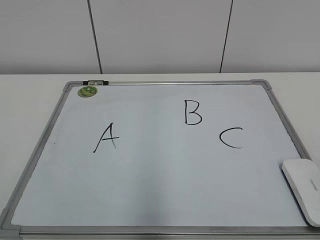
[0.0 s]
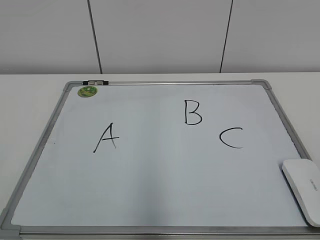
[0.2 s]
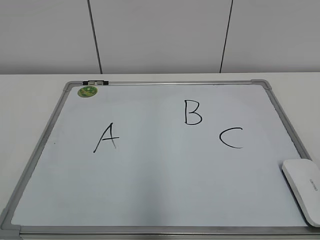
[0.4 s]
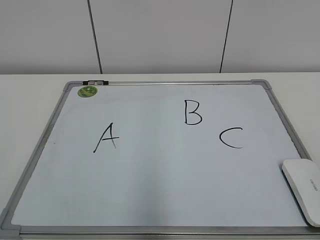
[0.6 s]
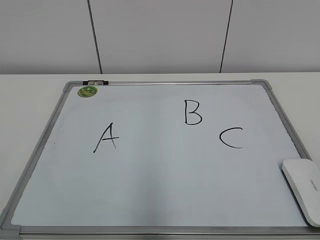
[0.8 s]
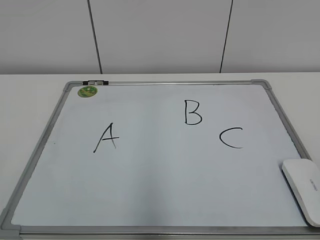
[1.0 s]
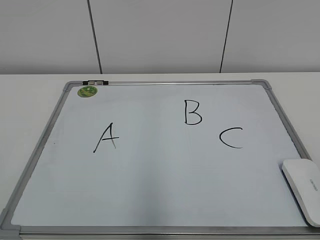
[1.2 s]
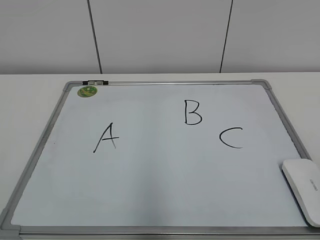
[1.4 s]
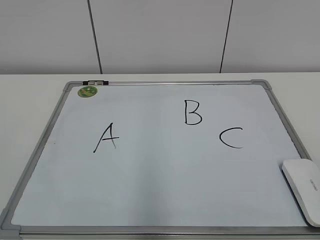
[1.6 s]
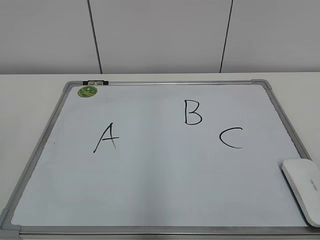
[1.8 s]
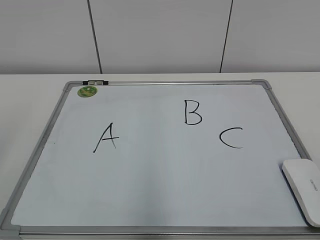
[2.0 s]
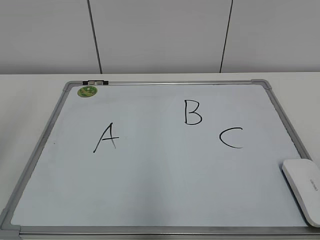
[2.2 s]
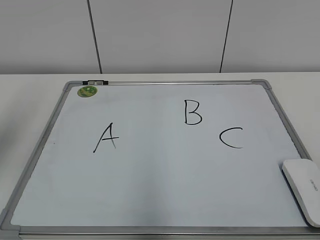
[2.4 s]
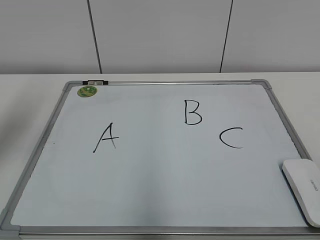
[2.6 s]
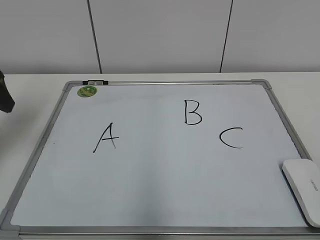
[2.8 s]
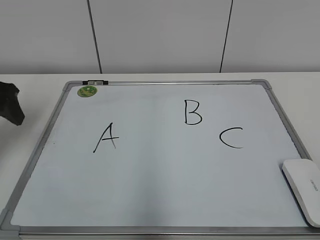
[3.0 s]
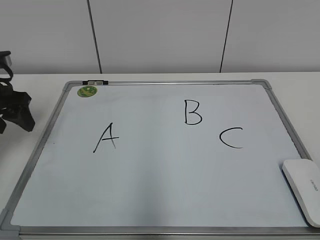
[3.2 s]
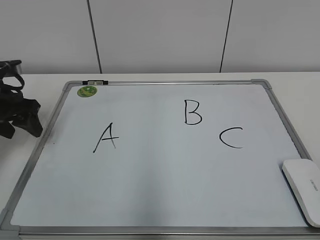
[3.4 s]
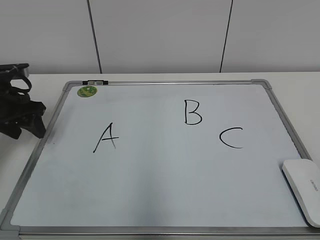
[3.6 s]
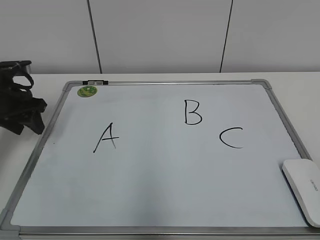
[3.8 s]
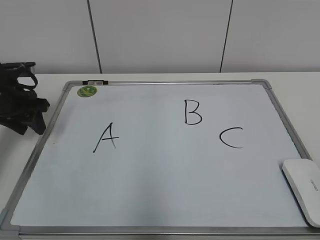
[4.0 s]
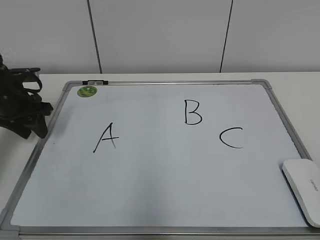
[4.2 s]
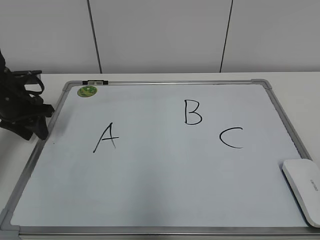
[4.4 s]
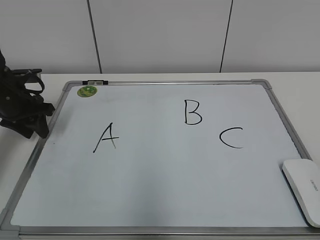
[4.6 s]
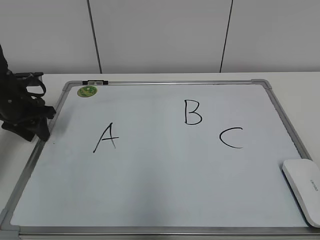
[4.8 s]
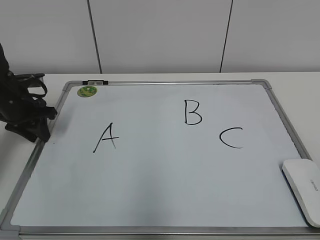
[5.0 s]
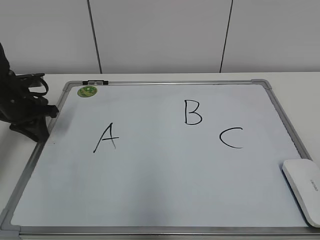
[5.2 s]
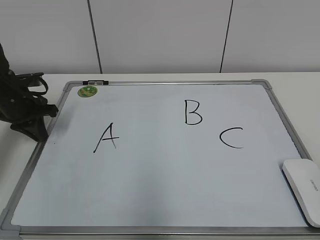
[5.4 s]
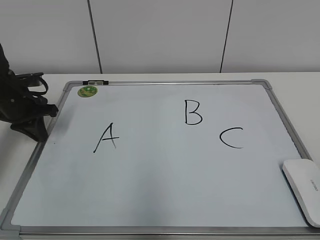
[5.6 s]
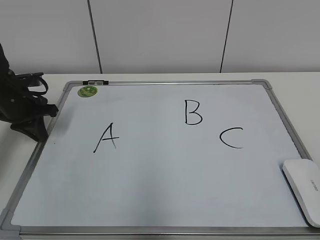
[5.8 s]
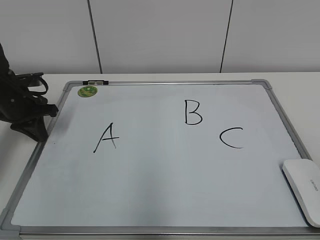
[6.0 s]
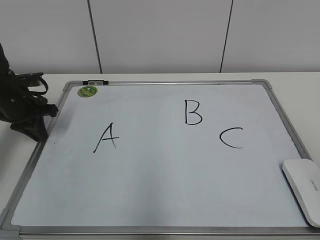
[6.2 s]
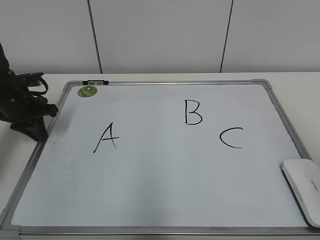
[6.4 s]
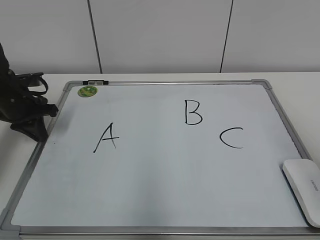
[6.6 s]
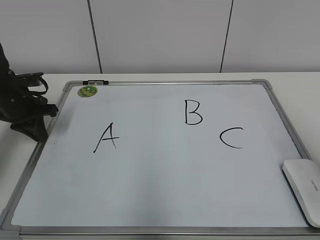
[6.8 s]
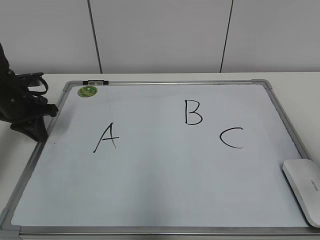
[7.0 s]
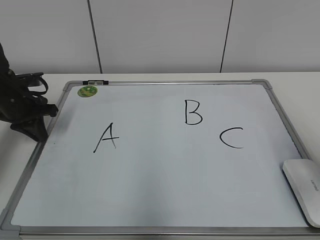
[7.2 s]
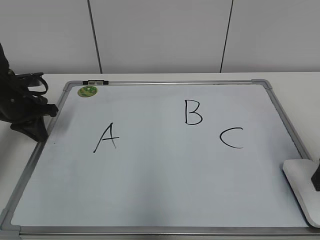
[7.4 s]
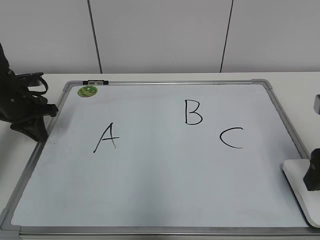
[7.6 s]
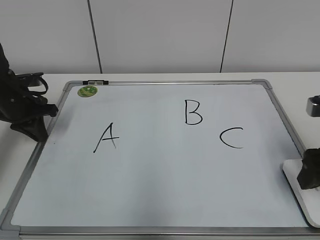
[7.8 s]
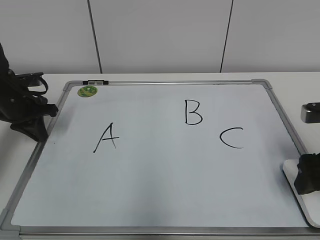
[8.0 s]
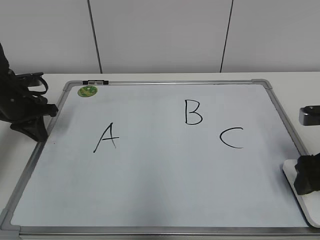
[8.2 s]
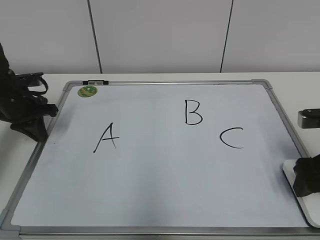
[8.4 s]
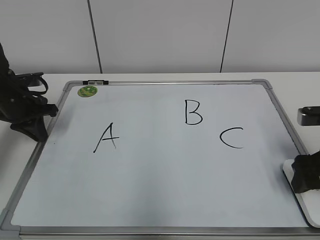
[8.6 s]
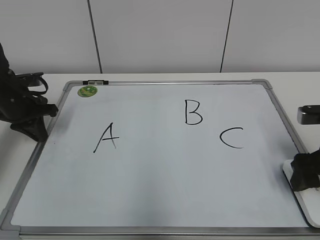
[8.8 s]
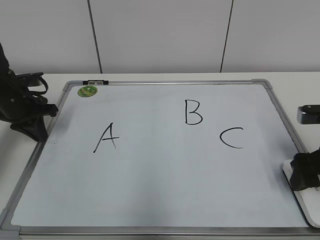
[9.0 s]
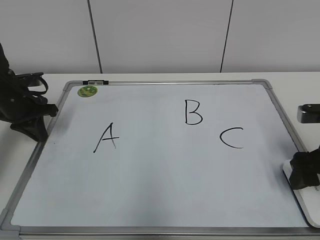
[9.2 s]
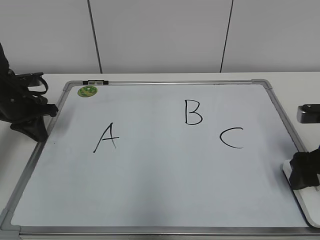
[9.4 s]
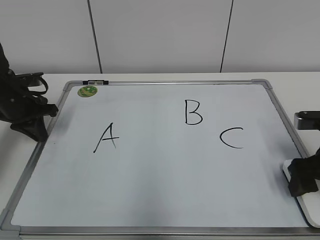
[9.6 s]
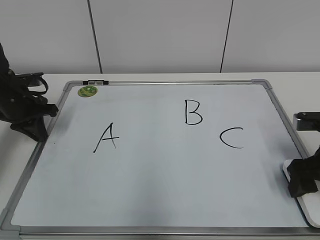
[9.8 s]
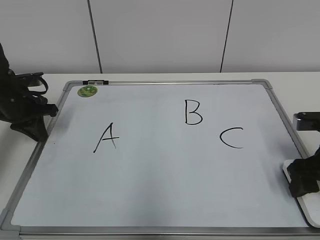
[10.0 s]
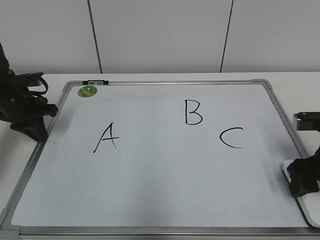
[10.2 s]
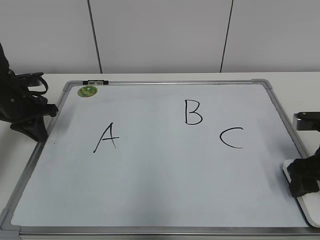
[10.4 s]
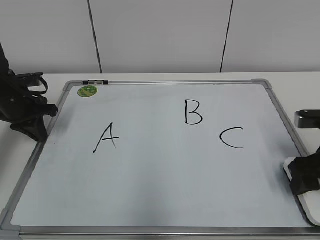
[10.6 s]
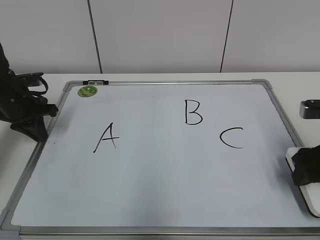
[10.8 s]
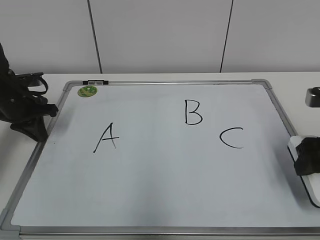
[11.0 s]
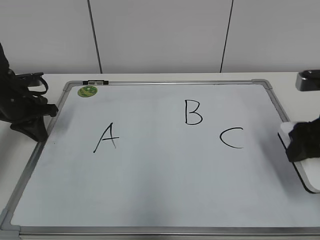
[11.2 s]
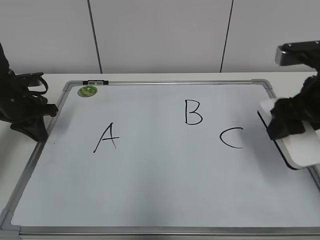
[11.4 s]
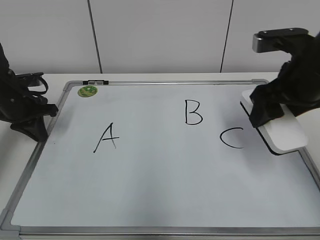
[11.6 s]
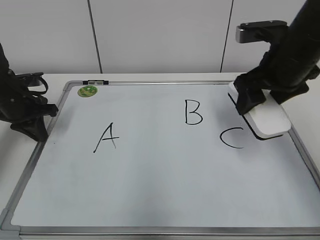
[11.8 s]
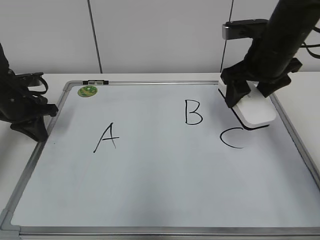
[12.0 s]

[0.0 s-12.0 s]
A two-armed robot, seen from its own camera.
Task of the whole recording: pick up the eraser on the blackboard and erase the letter "B".
Step, 0.0 to 5.2 s: Fixed the drawing board with the left gripper.
Step, 5.4 to 10.6 s: pick up the blackboard eraser with the right gripper.
1.6 to 3.0 s: The left gripper travels forward by some 35 cm.
3.0 to 4.4 s: The left gripper goes roughly 10 cm downward and forward, and closes.
4.4 to 6.0 s: The left gripper closes.
6.0 to 7.6 s: The right gripper is displaced forward by about 20 cm, and opens up.
7.6 to 9.0 s: The right gripper travels downward by roughly 5 cm.
9.0 to 10.4 s: The right gripper closes its fingers.
10.4 to 12.0 s: The right gripper heads forward, upward and to the left, covering roughly 20 cm.

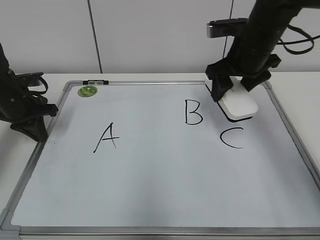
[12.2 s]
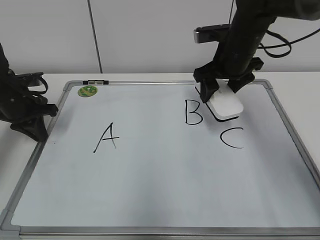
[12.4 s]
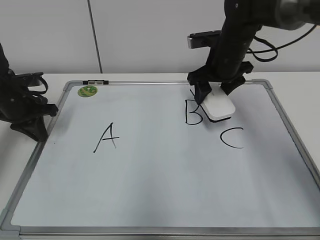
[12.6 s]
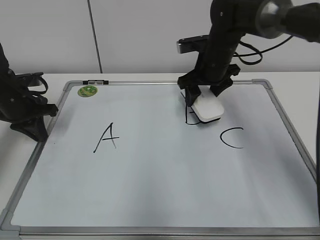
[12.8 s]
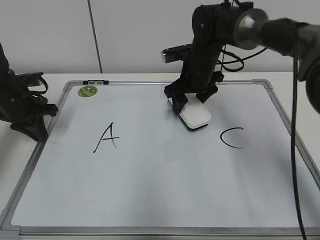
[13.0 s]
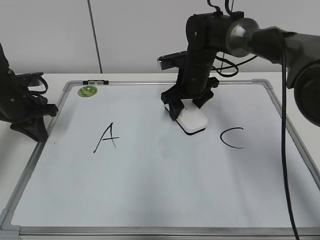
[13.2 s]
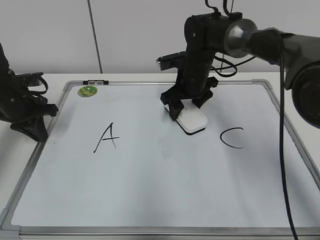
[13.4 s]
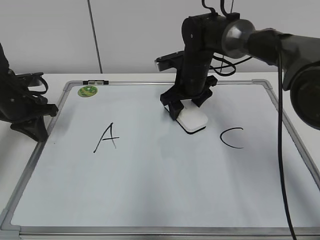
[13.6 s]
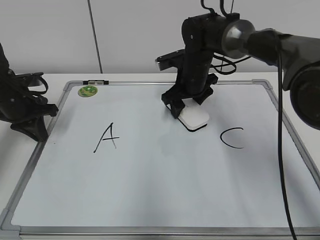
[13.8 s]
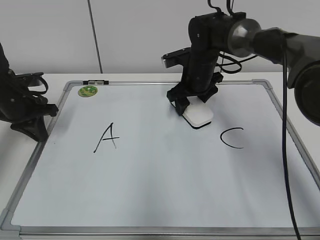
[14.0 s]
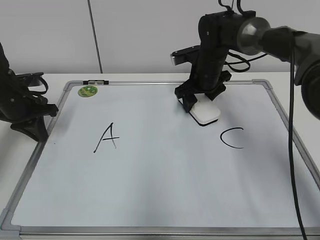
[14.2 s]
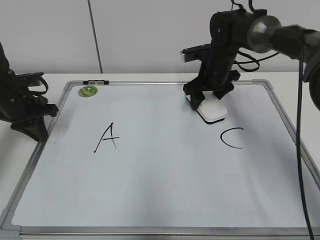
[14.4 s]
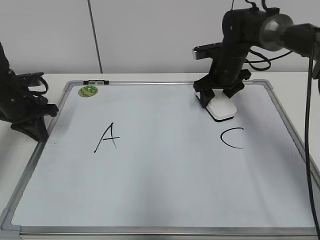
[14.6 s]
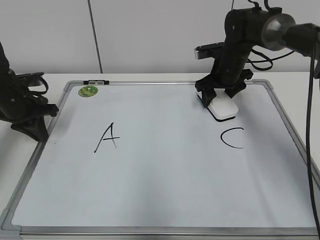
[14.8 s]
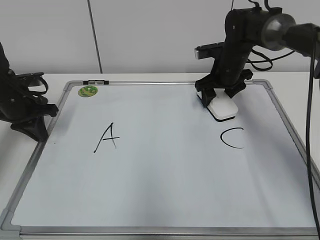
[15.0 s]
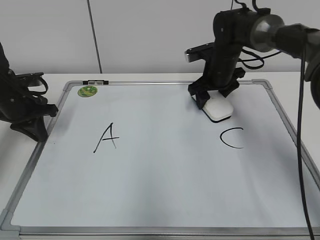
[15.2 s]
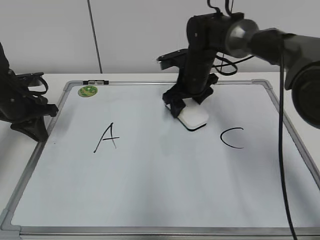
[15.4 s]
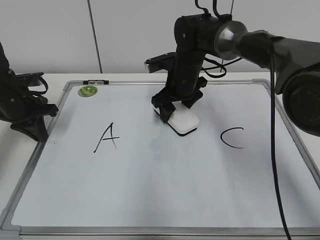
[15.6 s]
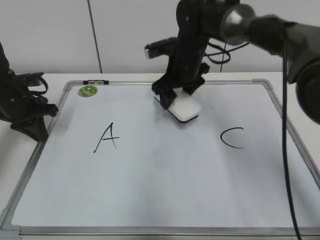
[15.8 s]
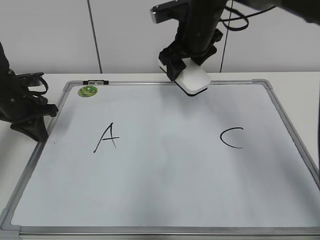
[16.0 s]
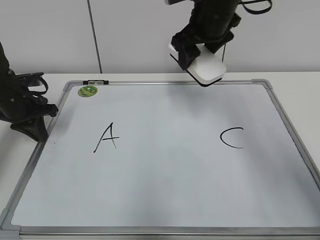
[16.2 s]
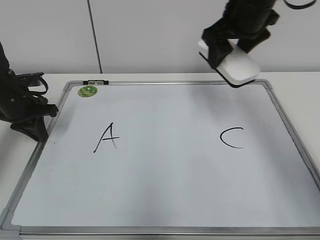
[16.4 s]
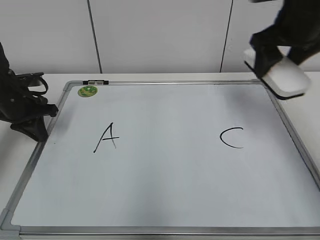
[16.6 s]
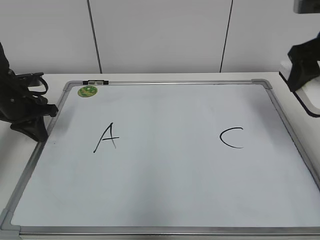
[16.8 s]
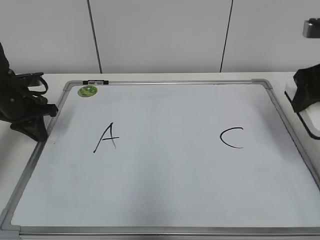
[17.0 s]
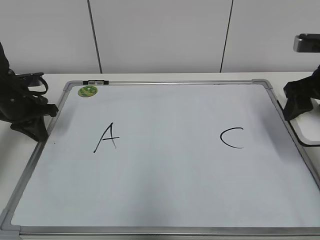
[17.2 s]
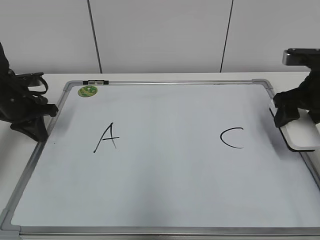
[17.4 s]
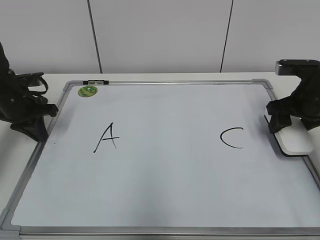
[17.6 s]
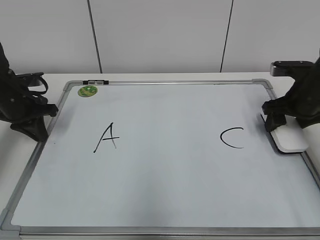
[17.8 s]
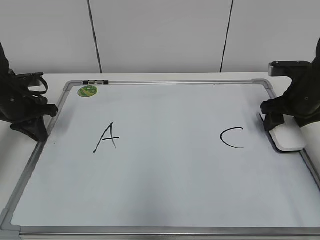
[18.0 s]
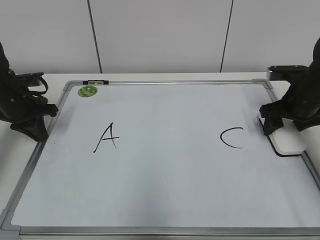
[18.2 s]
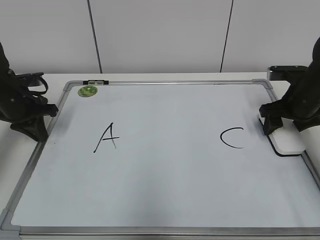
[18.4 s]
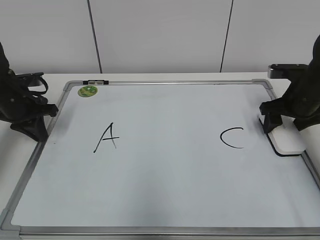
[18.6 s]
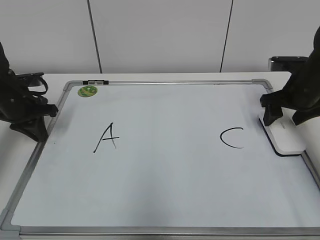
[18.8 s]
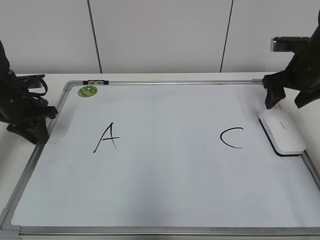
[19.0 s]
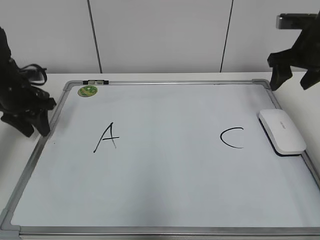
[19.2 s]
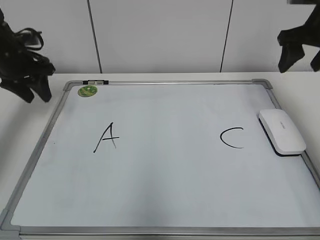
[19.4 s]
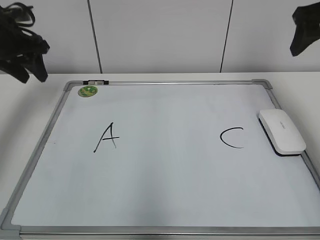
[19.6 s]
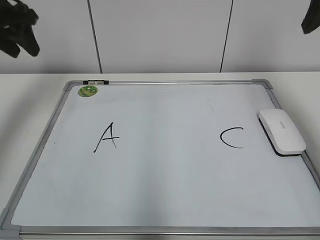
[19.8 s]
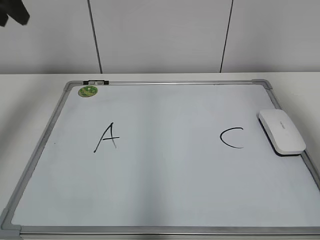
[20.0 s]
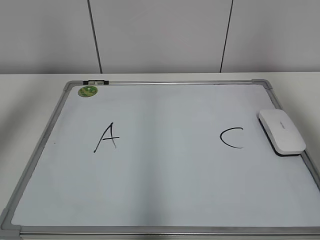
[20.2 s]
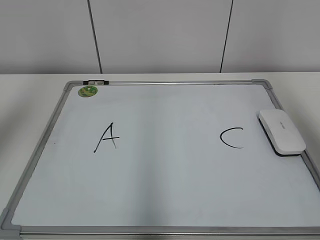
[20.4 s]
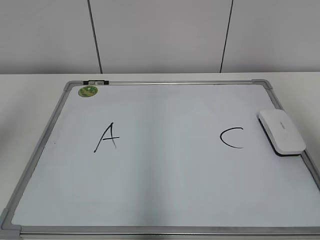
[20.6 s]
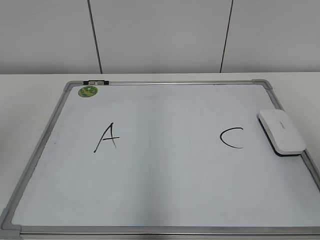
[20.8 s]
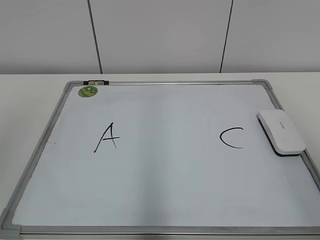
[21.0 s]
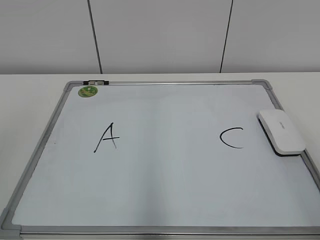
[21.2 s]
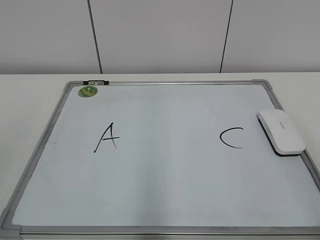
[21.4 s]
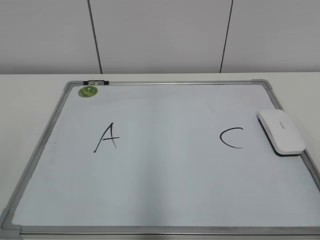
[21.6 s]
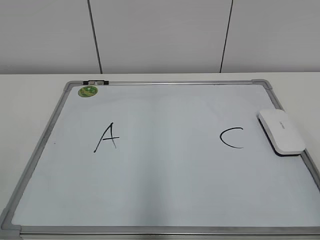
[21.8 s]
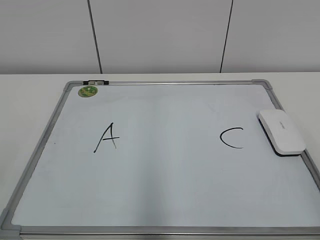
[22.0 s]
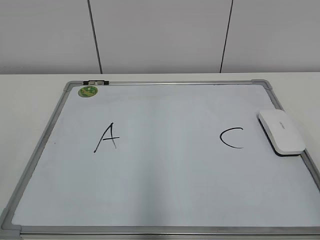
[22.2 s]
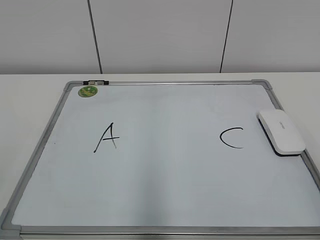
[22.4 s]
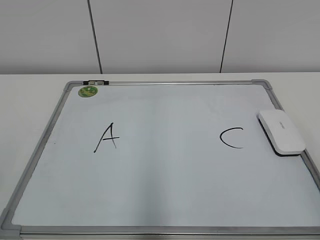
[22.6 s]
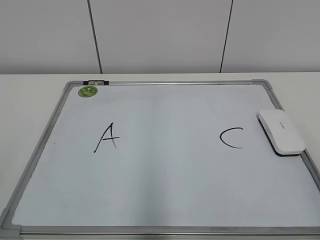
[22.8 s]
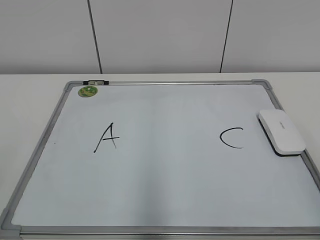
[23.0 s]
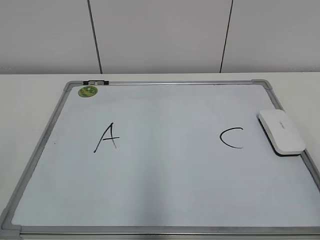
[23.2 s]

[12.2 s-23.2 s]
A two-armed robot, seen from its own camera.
Task of the whole recording: pick up the eraser on the blackboard and erase the letter "B".
Step, 12.2 to 15.6 s: Erase the letter B use the eraser with the right gripper.
Step, 15.8 to 18.6 s: Place the blackboard eraser with the right gripper.
12.2 to 13.8 s: The right gripper goes roughly 15 cm downward, to the left and forward.
13.8 to 15.4 s: The right gripper reaches about 10 cm to the right, then returns.
15.4 to 17.0 s: The right gripper heads to the right, backward and upward, covering approximately 25 cm.
17.0 to 18.4 s: The right gripper heads downward and forward, covering approximately 15 cm.
18.4 to 20.0 s: Both grippers move upward, about 25 cm. The left gripper opens up.
20.0 to 21.6 s: The left gripper is displaced backward by some 30 cm; the right gripper goes about 30 cm backward and downward.
